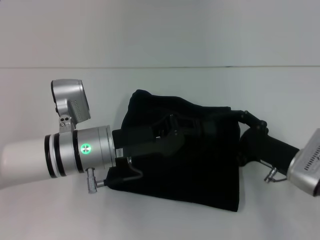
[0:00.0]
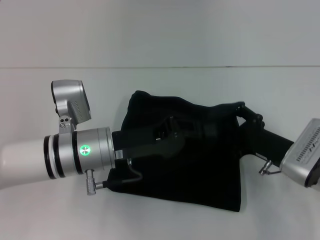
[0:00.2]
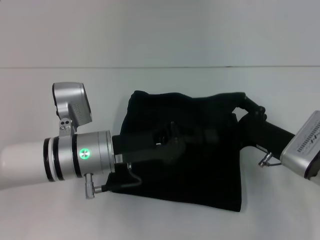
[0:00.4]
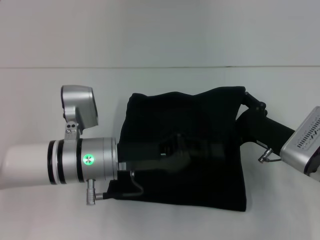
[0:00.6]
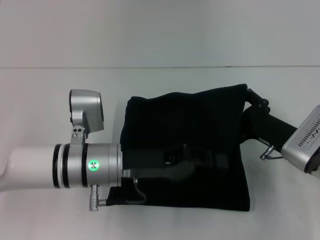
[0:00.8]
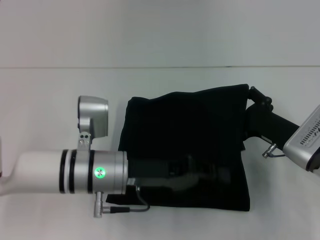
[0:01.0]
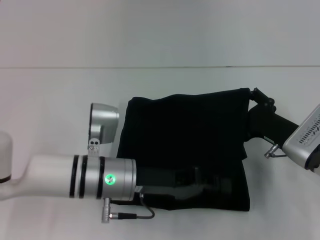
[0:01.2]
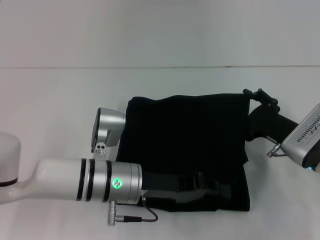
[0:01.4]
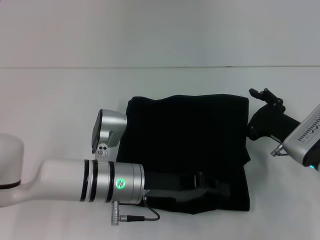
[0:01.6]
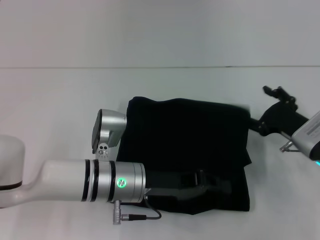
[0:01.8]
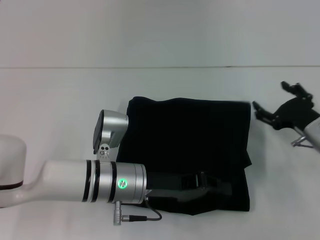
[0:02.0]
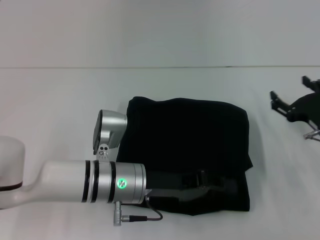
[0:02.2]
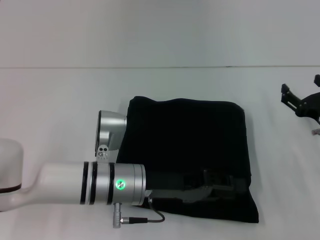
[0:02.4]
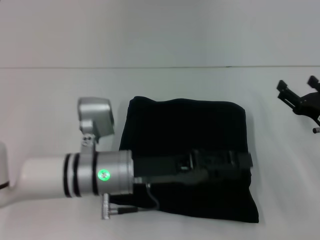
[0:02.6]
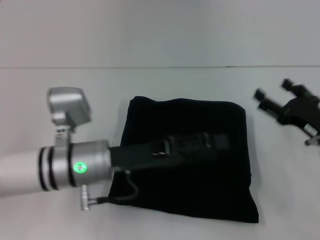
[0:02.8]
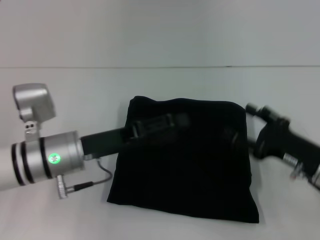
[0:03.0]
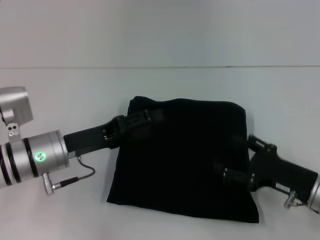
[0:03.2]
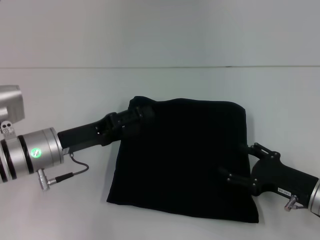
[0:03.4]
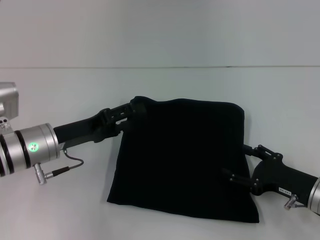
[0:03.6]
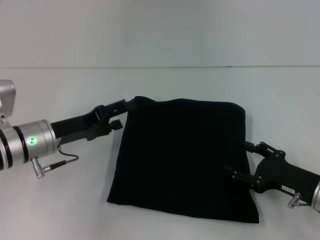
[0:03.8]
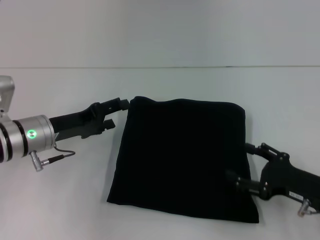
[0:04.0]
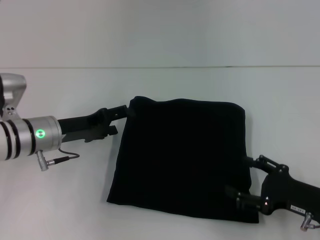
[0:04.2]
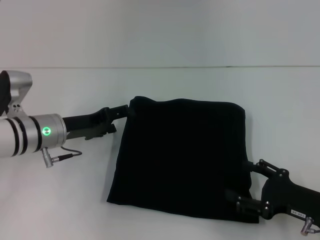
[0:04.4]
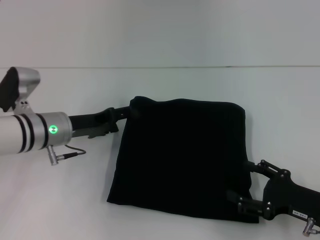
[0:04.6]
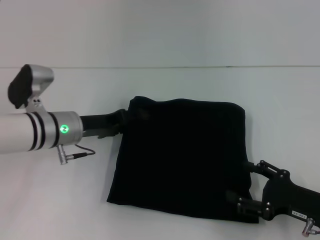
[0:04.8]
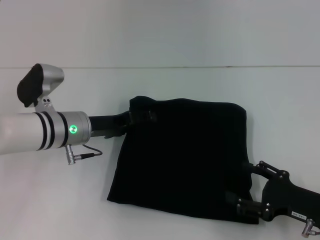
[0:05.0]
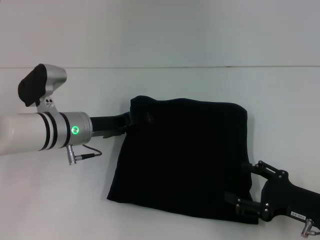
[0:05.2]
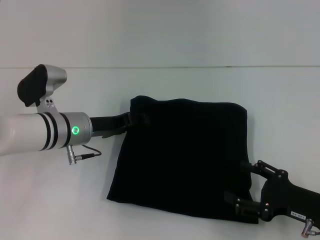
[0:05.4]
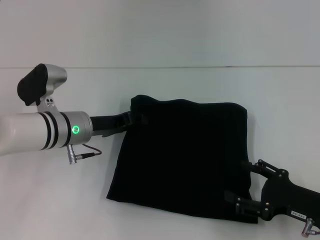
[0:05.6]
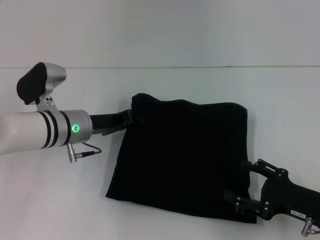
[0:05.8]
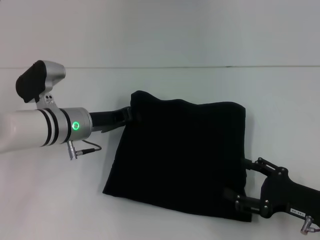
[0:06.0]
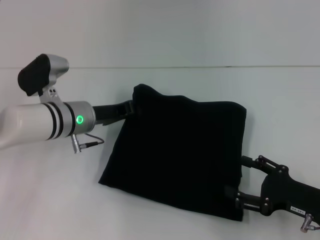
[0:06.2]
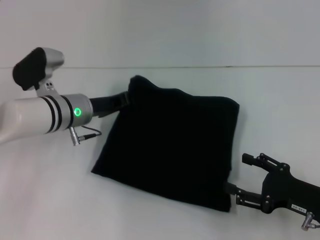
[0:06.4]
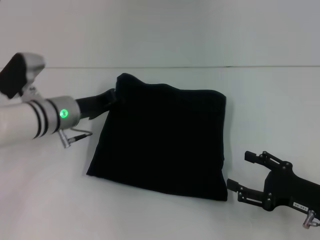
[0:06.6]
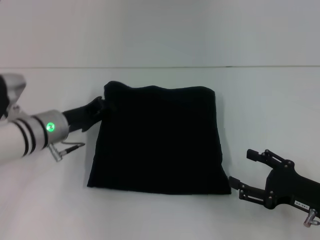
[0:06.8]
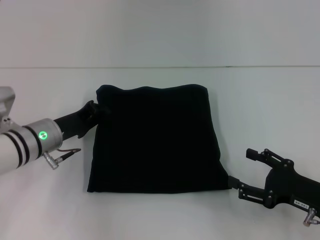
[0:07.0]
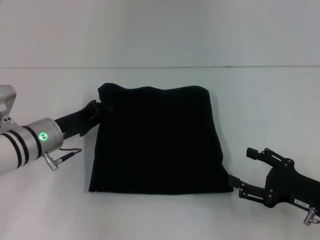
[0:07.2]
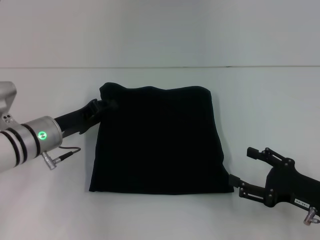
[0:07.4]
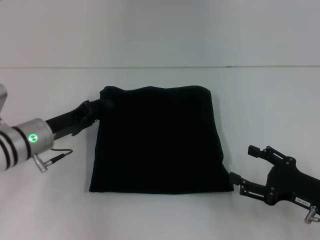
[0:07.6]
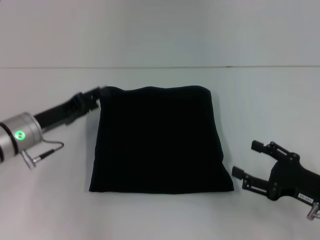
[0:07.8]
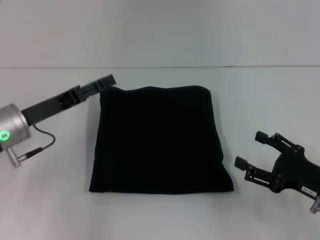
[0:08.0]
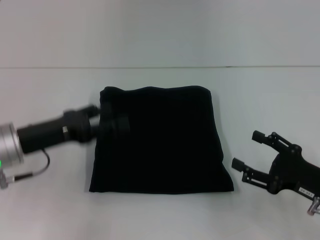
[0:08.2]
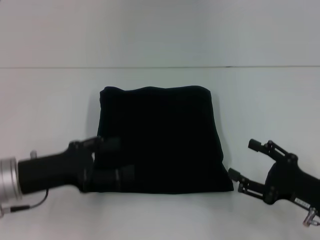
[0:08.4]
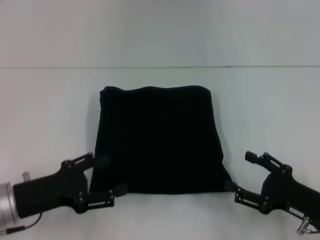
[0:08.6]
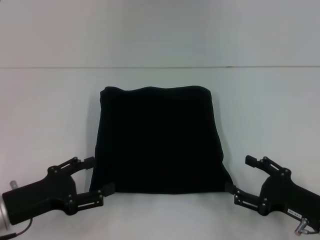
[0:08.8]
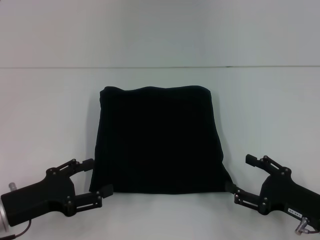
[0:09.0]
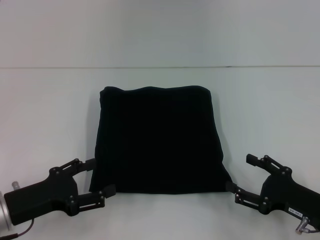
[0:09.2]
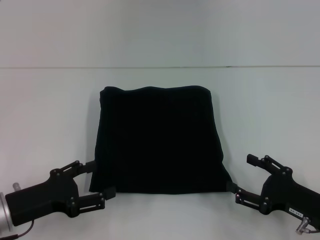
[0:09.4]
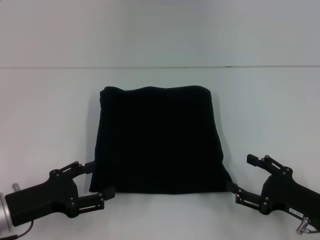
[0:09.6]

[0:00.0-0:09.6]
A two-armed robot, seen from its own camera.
Step, 0:00.0 to 0:02.6: Fold the clothes with your left hand.
0:00.0 to 0:01.6: The left gripper changes place by approximately 5 cm.
0:01.6 to 0:03.2: The right gripper shifts some 5 cm backward, while the left gripper travels to the left by roughly 10 cm, and opens.
0:03.2 to 0:04.8: The left gripper moves forward, approximately 5 cm.
0:04.8 to 0:06.4: The left gripper closes its fingers.
0:06.4 to 0:08.0: The left gripper shifts roughly 10 cm to the left and backward, and opens up.
0:08.0 to 0:09.6: The left gripper goes approximately 10 cm backward and downward.

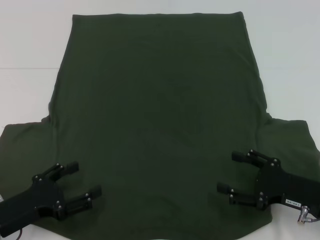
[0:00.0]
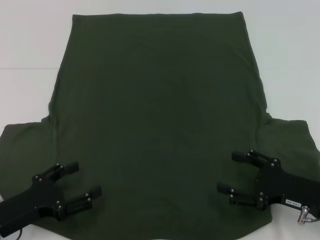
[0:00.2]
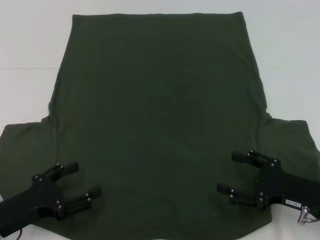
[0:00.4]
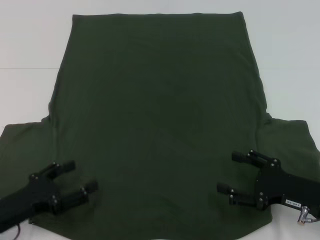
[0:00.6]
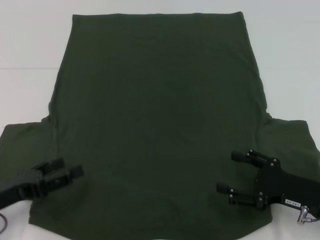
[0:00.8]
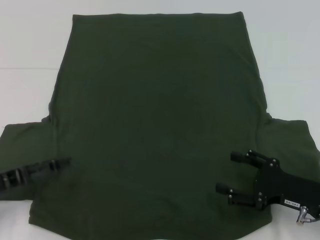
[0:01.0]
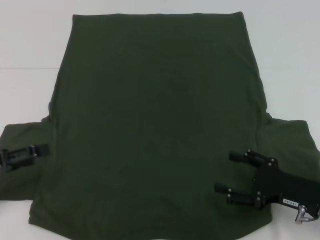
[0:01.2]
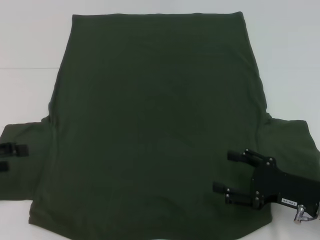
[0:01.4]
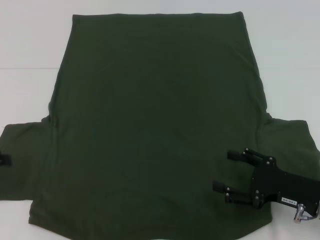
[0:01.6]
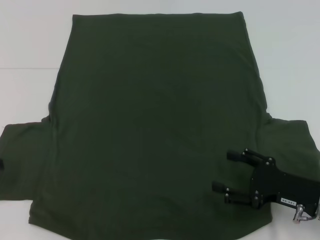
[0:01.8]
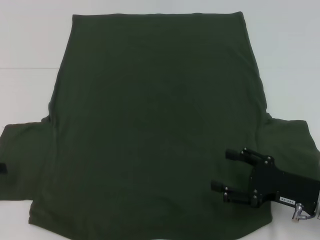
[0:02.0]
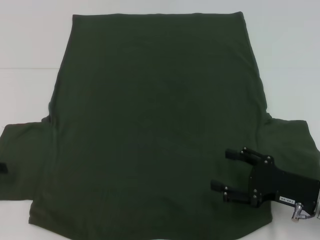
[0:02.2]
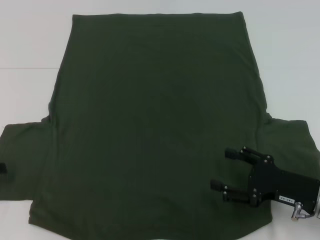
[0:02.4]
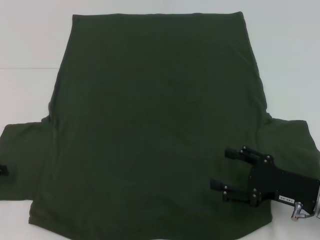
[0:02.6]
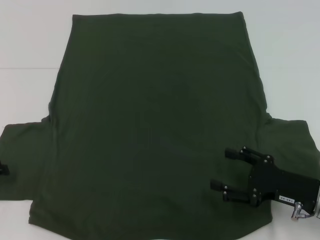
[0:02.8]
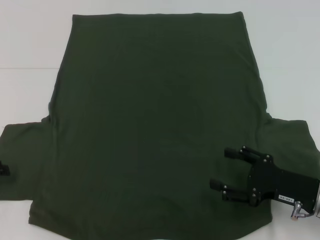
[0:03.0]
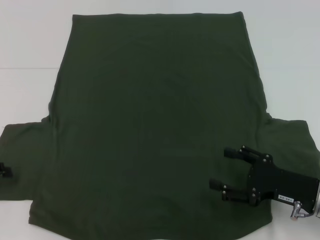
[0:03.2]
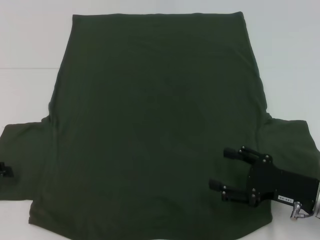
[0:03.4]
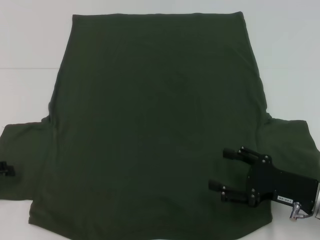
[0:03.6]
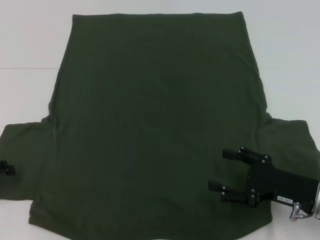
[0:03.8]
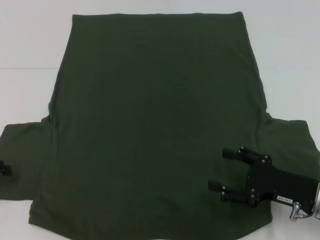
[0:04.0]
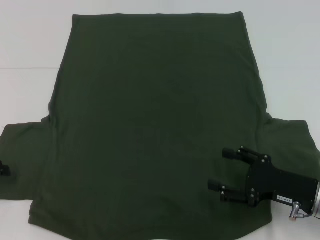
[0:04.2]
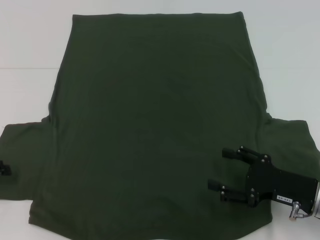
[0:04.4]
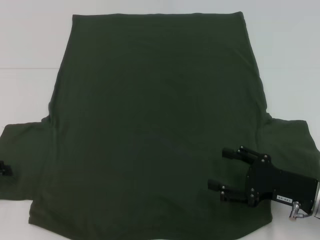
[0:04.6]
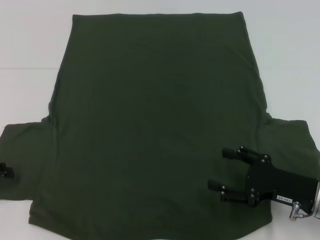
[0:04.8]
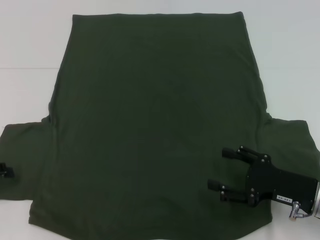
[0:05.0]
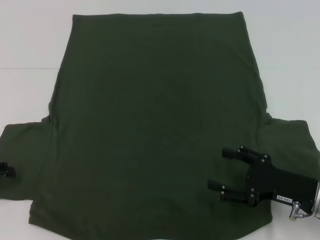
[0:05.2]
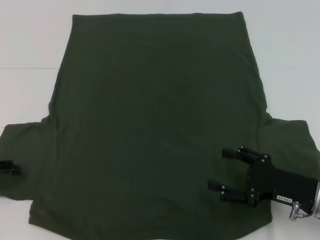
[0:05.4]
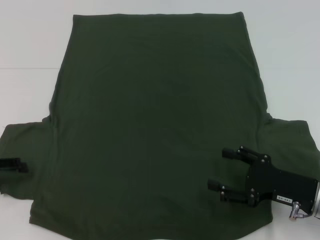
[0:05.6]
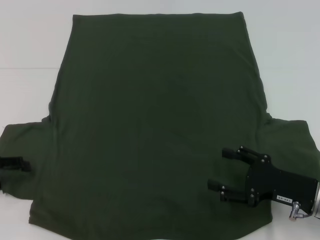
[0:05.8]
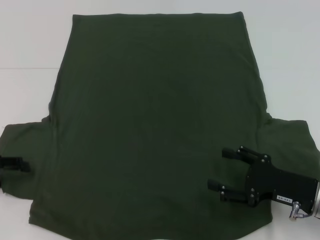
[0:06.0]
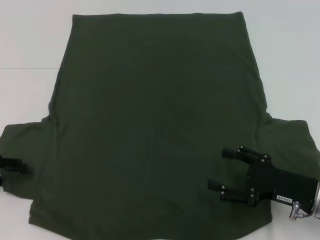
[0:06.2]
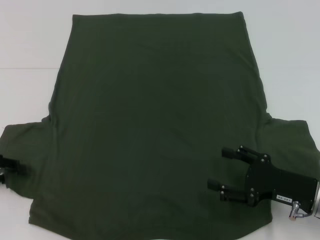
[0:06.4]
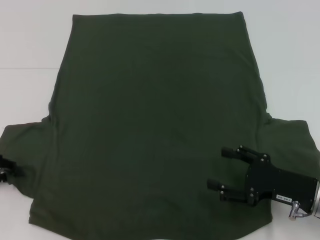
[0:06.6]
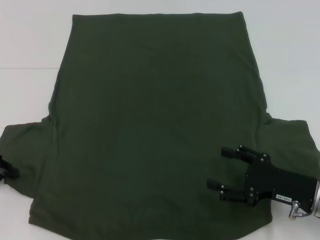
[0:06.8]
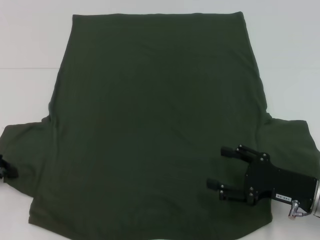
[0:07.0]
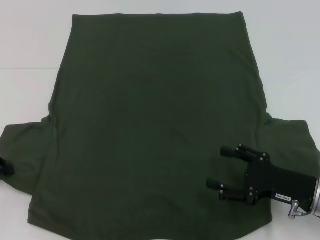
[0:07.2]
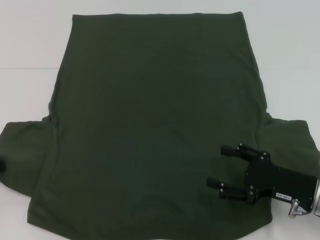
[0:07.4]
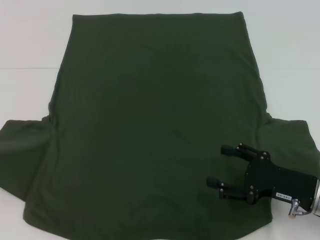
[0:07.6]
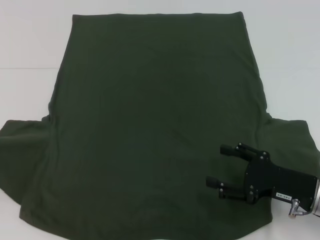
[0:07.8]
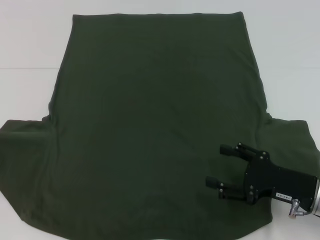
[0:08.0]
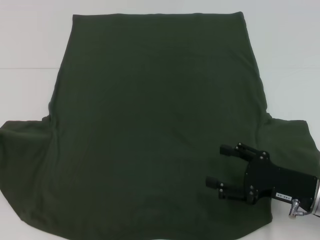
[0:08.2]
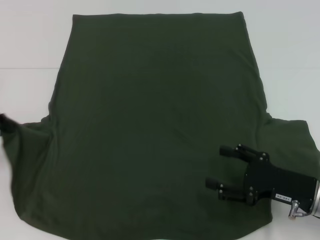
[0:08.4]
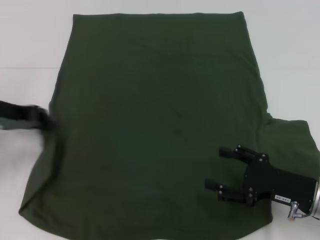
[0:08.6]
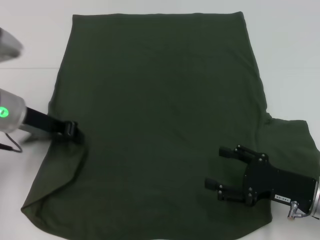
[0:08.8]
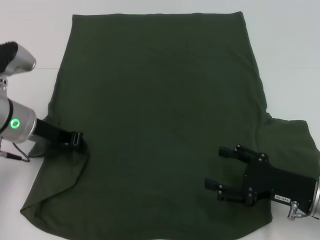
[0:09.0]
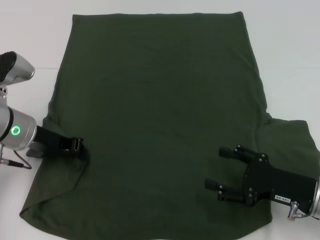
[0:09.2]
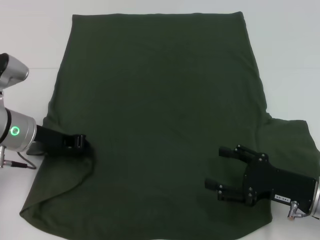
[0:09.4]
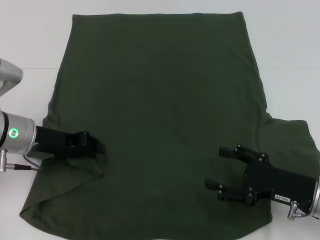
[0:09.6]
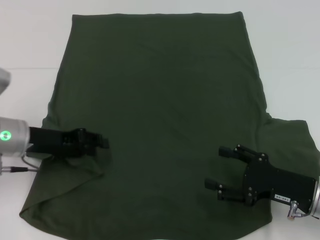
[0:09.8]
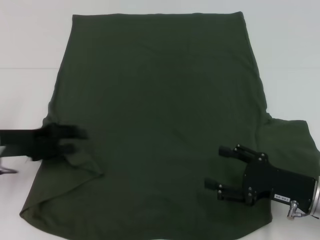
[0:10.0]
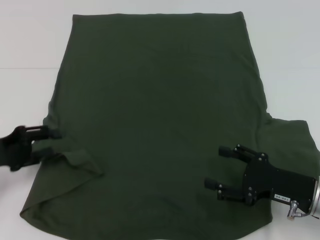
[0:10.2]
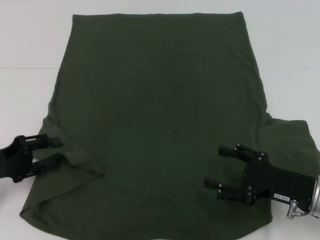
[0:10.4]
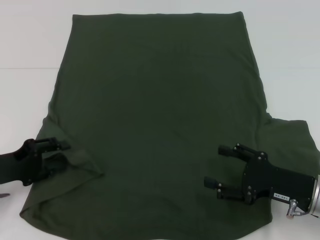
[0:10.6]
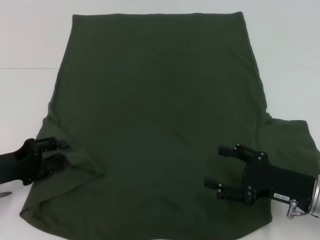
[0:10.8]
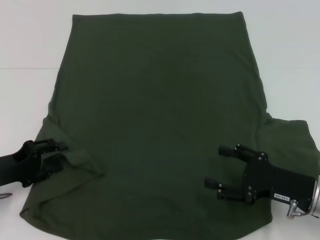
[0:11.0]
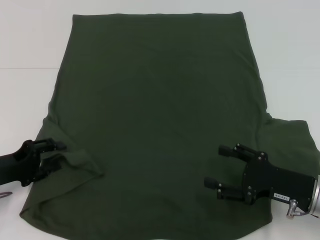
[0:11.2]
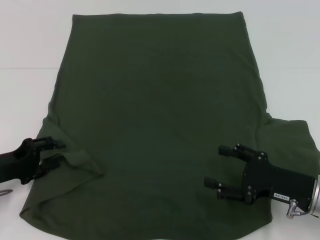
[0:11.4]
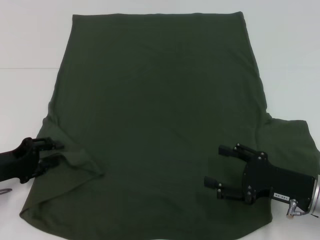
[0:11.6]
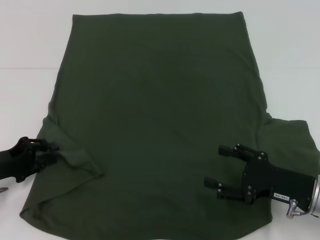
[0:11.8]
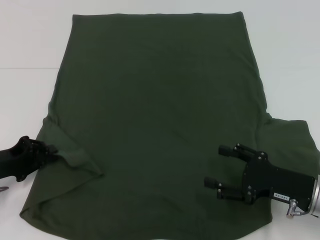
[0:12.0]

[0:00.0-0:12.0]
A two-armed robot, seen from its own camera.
0:00.0 to 0:01.6: The left gripper goes roughly 15 cm to the left, upward and forward.
0:01.6 to 0:03.0: The grippers move only a little.
0:03.0 to 0:04.4: Both grippers stay about where they are.
0:06.0 to 0:07.6: The left gripper closes.
0:07.6 to 0:09.0: The left gripper is displaced to the right by some 15 cm.
0:09.0 to 0:10.4: The left gripper moves to the left, backward and downward, approximately 15 cm, and opens up.
0:10.4 to 0:12.0: The grippers make only small movements.

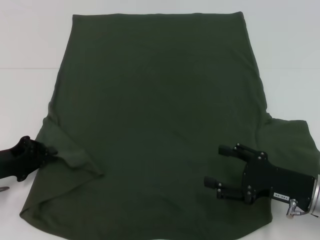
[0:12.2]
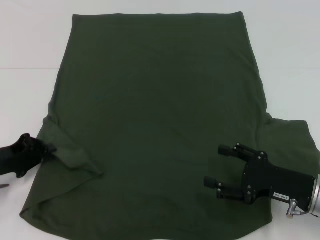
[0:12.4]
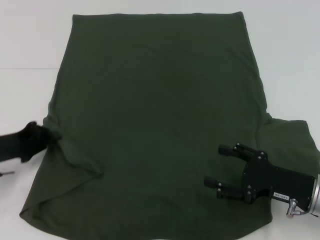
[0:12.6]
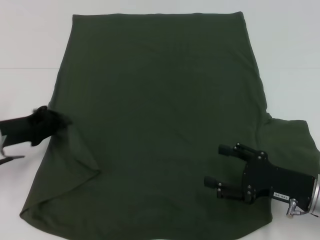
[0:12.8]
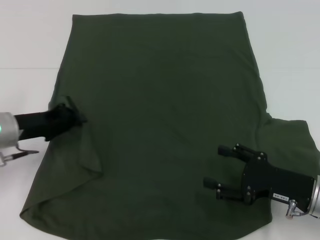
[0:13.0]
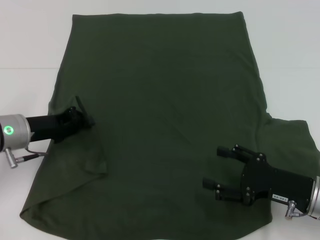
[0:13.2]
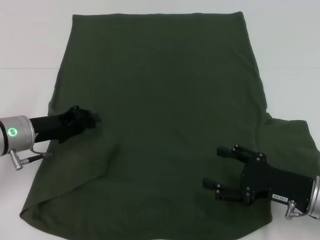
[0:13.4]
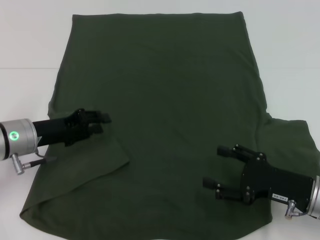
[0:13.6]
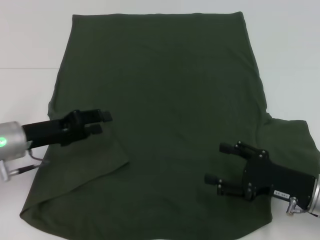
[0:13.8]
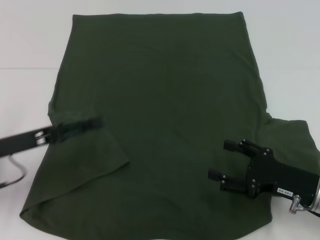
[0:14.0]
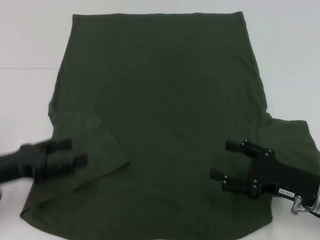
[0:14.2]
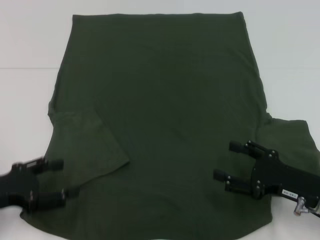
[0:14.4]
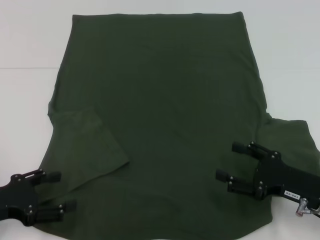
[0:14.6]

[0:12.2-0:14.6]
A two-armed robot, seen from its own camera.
0:12.2 to 0:13.4: The left gripper heads to the right and forward, covering roughly 10 cm.
0:13.4 to 0:14.6: The left gripper goes approximately 15 cm backward and to the left, and opens up.
